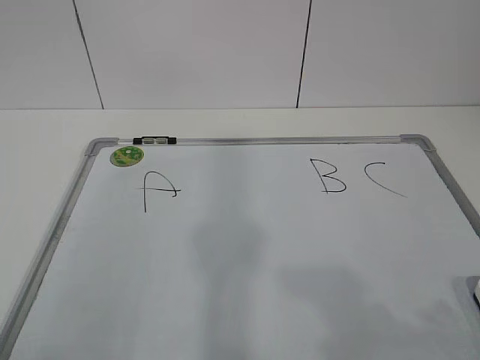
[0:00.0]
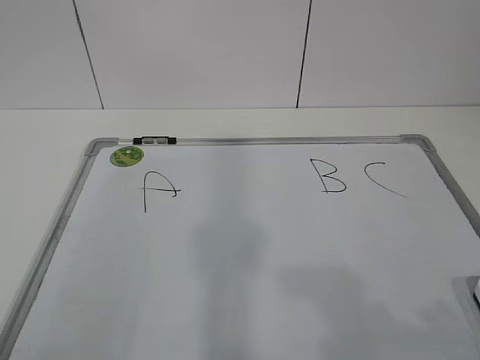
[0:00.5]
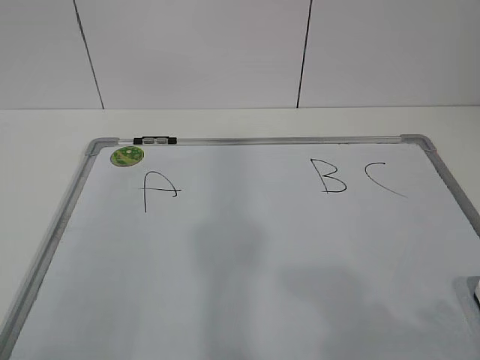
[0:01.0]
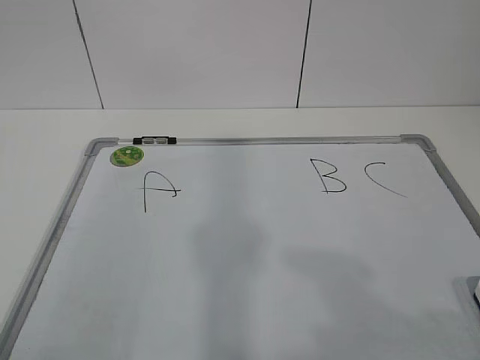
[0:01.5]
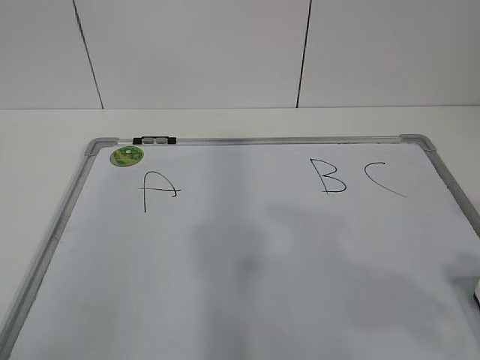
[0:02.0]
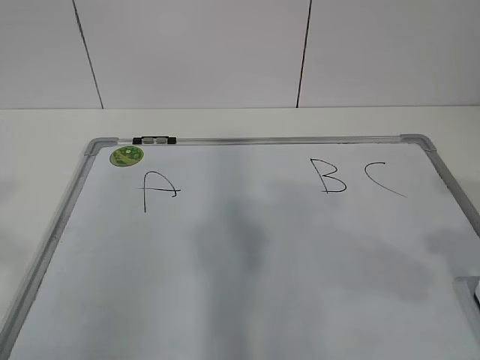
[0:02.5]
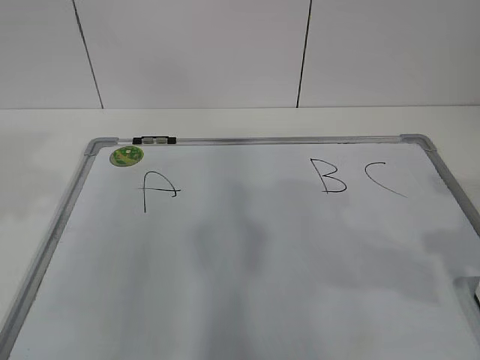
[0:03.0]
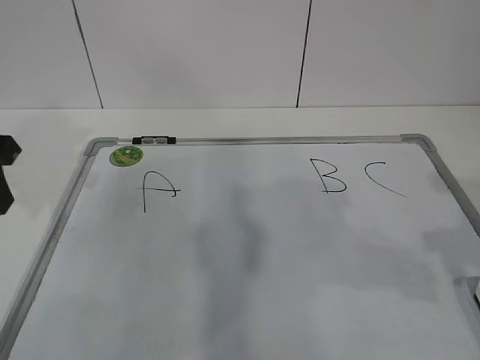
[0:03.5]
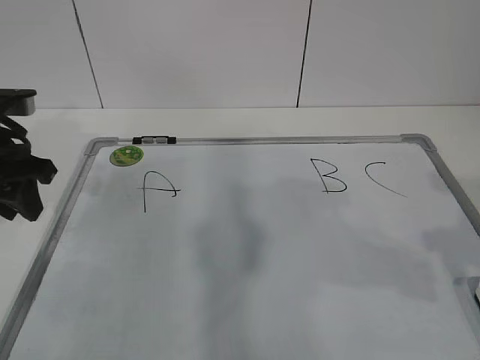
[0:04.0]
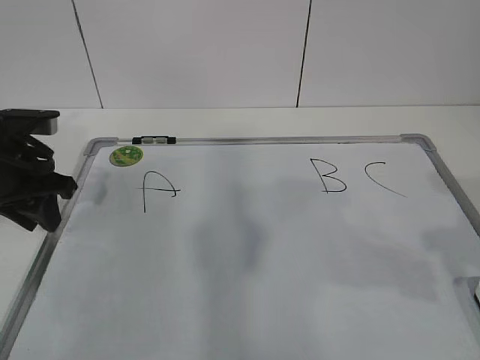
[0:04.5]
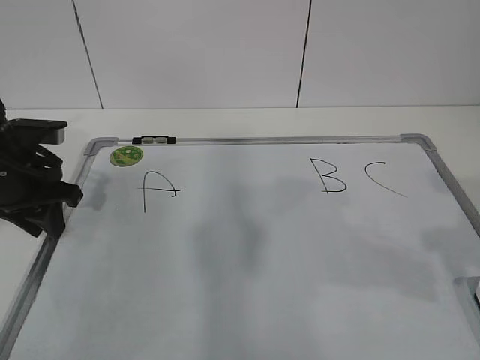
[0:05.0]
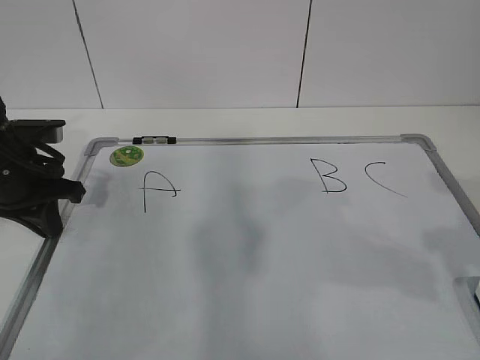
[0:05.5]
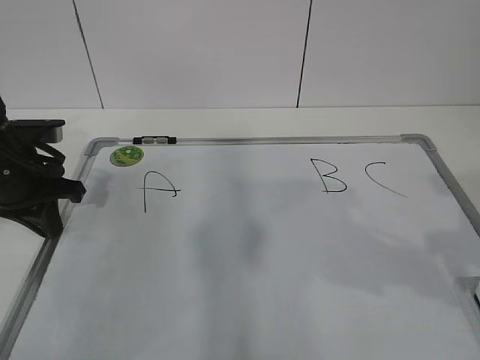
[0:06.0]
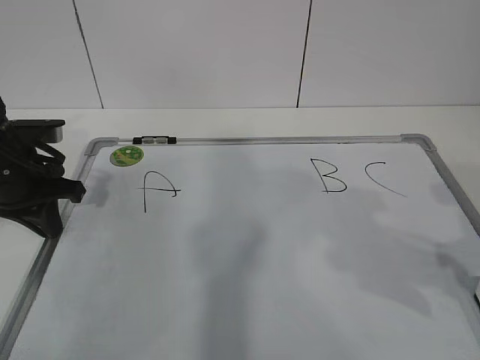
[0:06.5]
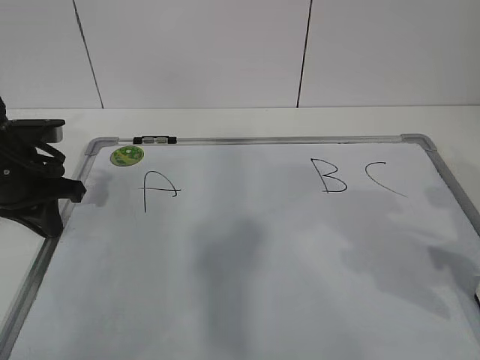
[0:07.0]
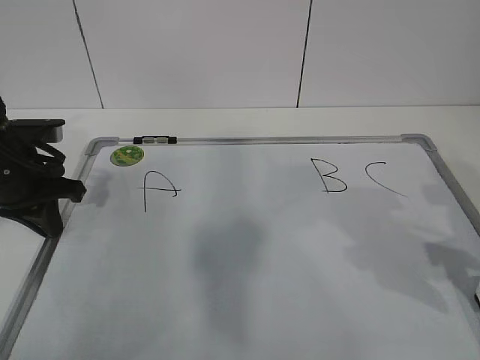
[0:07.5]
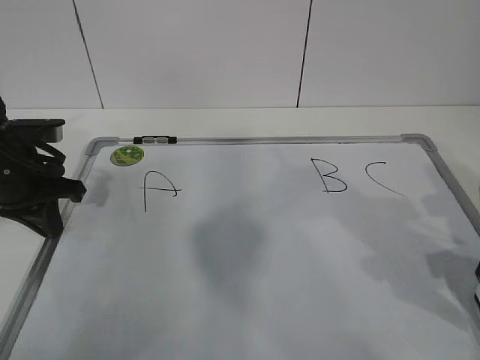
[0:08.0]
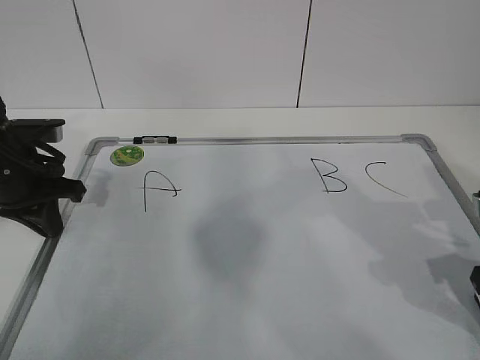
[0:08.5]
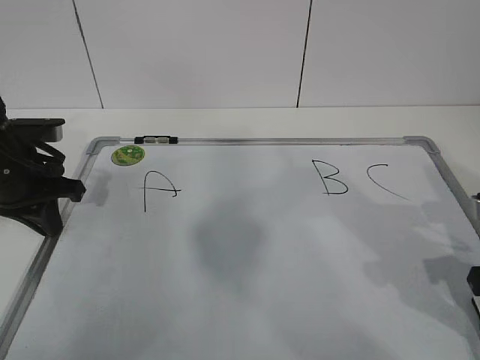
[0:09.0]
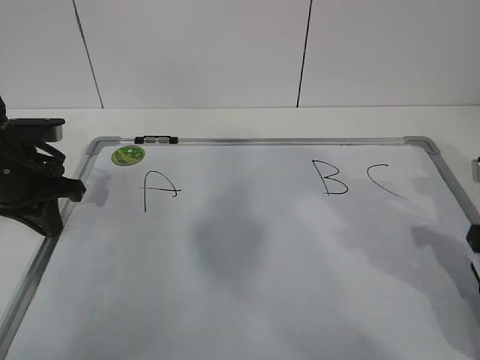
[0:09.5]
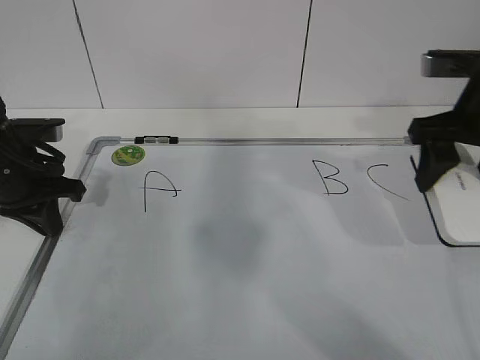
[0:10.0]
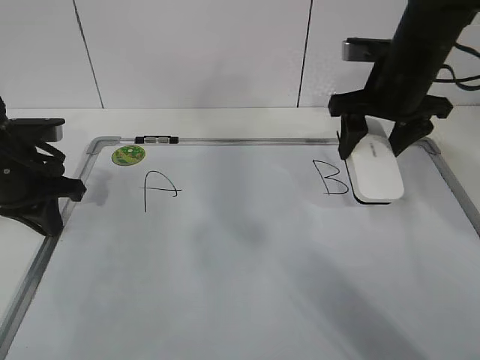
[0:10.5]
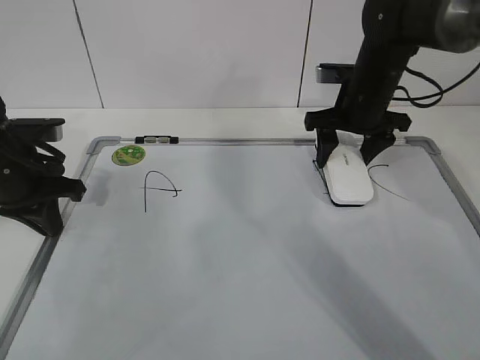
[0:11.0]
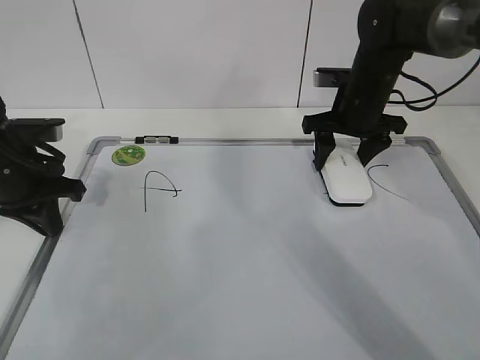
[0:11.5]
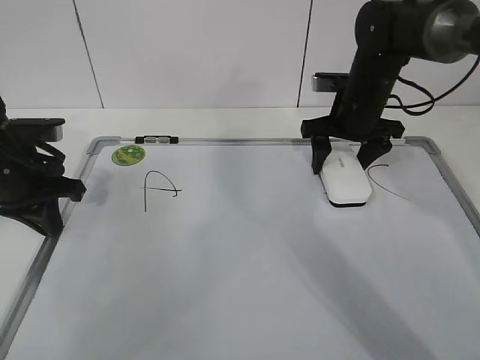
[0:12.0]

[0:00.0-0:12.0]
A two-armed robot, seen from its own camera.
Task of the whole recording: pick up the eraser on the blackboard and erase the letter "B".
Step, 0:00.0 to 0:04.0: Hold the drawing board steady with your left hand.
Step, 0:04.5 to 0:07.0: Grab the eraser with your right hand.
0:02.0 to 0:04.0: The left gripper shifts about 30 cm forward.
0:04.0 to 0:06.0: The left gripper moves downward, about 5 cm, and closes its fingers.
0:06.0 to 0:08.0: The right gripper goes some 15 cm downward and forward.
0:08.0 to 0:10.0: The right gripper moves forward and upward, about 10 cm, and closes.
0:10.0 to 0:12.0: The right gripper heads forward, downward and to the left, covering roughly 20 cm, and opens.

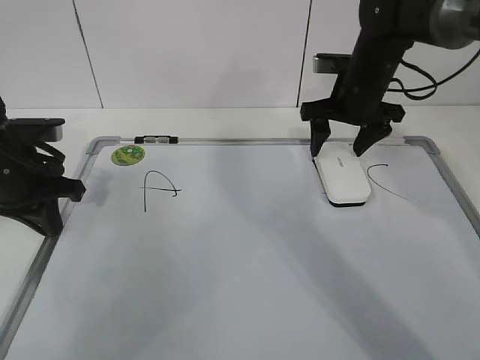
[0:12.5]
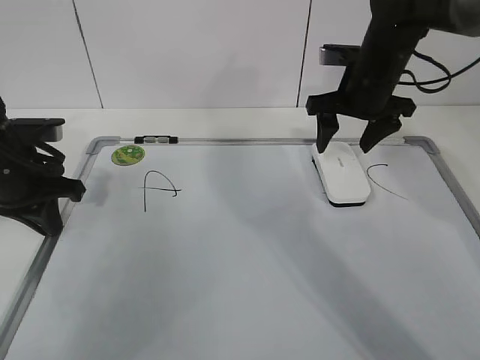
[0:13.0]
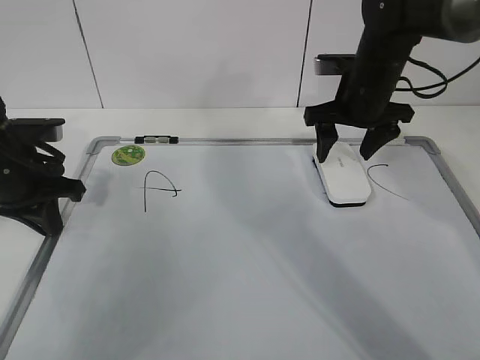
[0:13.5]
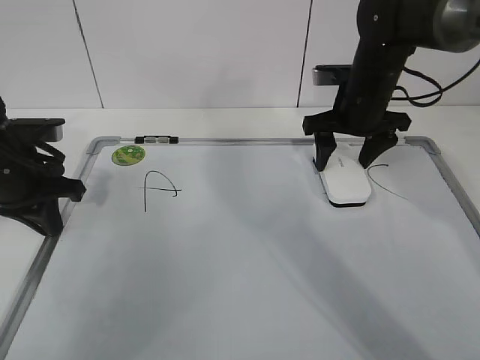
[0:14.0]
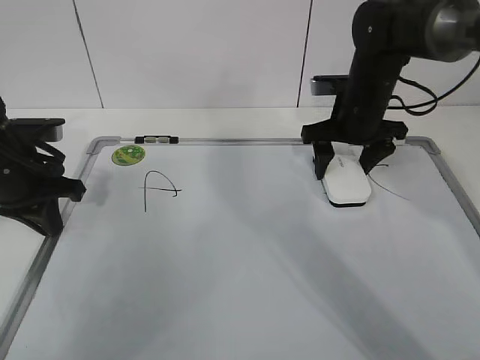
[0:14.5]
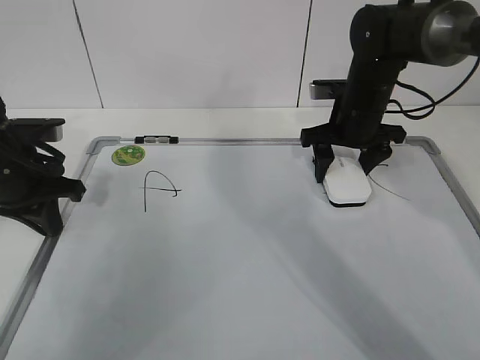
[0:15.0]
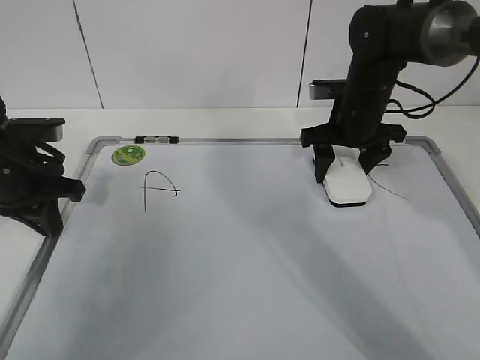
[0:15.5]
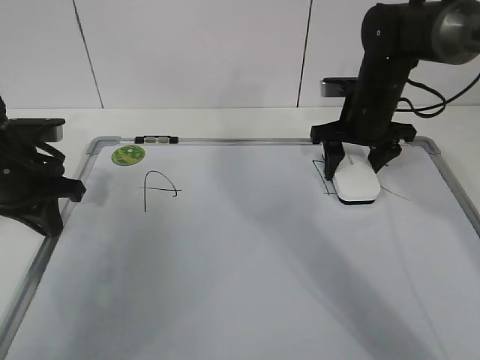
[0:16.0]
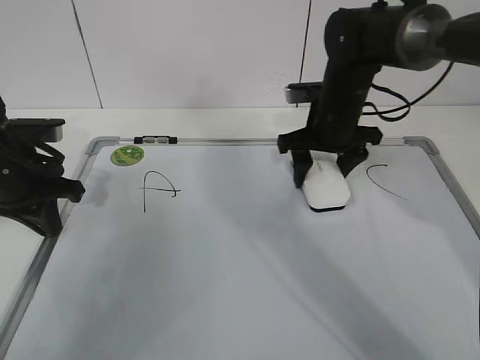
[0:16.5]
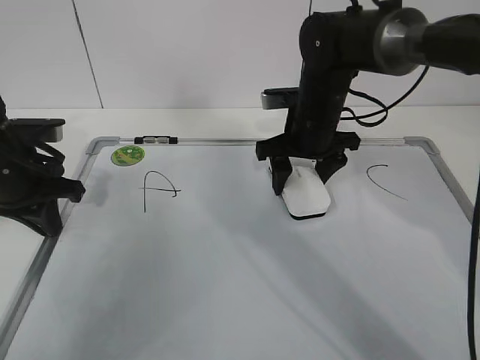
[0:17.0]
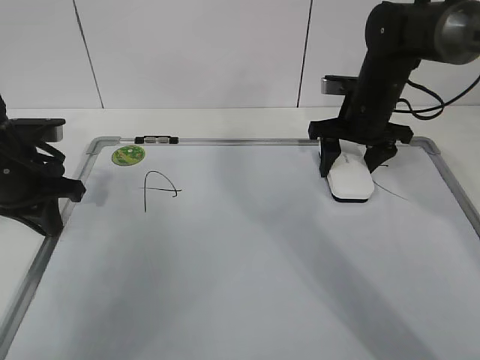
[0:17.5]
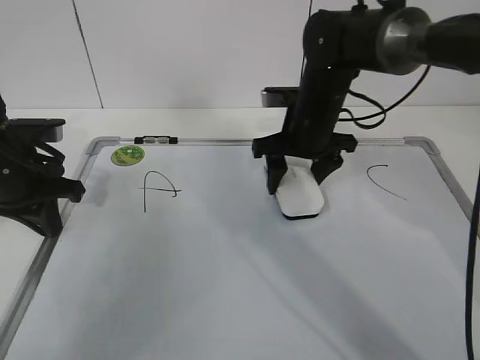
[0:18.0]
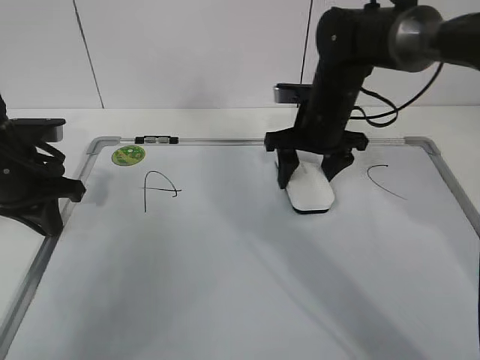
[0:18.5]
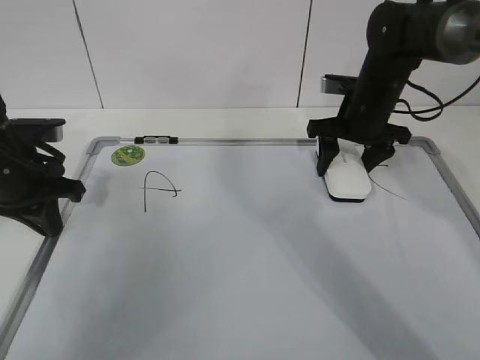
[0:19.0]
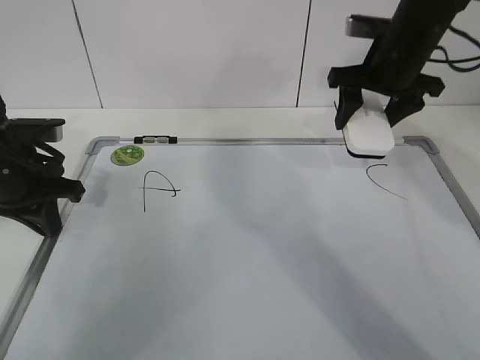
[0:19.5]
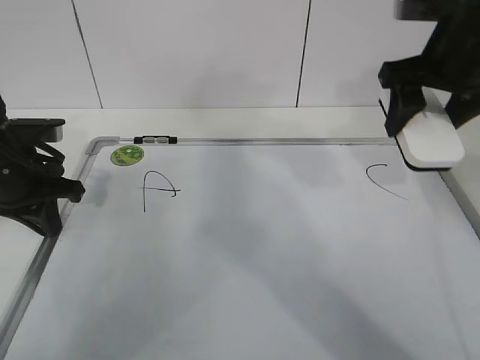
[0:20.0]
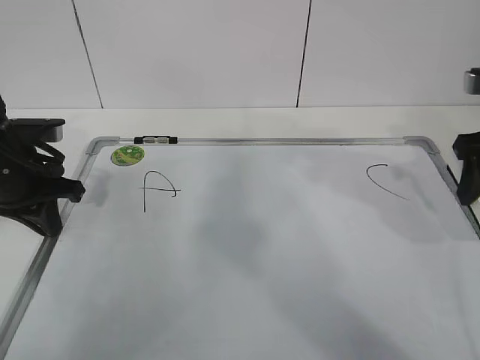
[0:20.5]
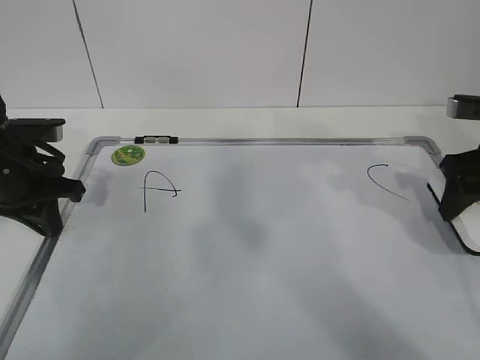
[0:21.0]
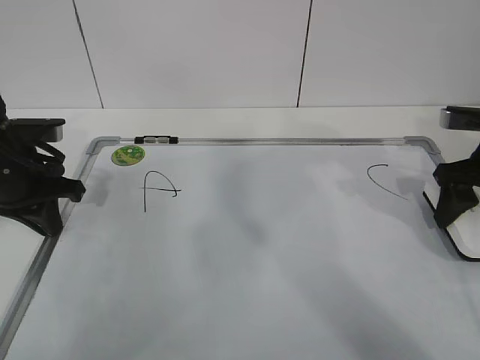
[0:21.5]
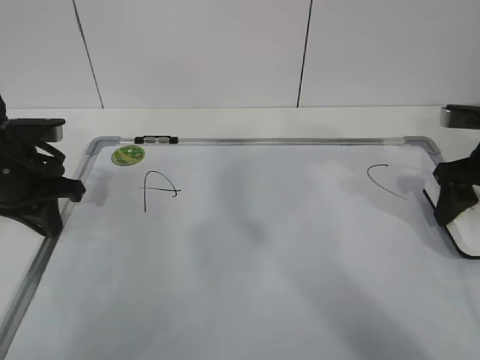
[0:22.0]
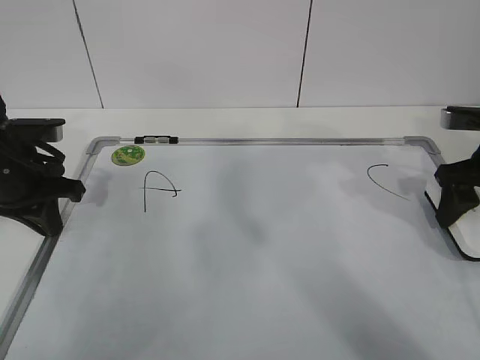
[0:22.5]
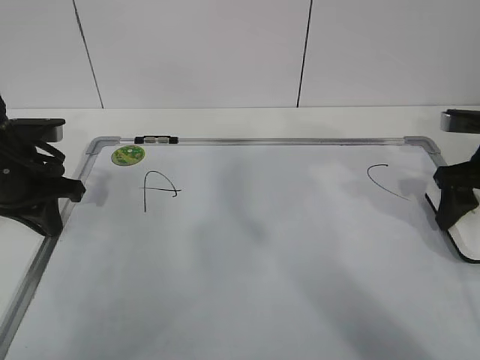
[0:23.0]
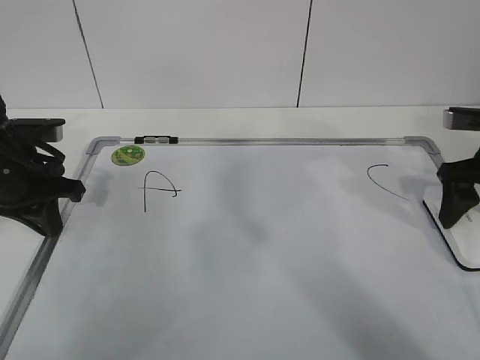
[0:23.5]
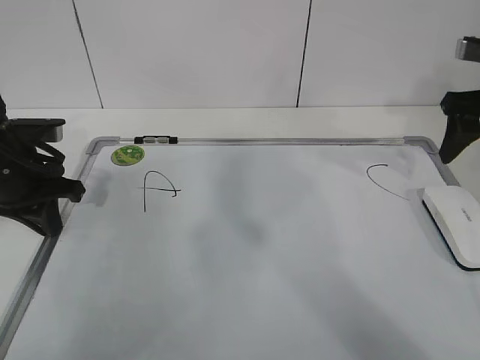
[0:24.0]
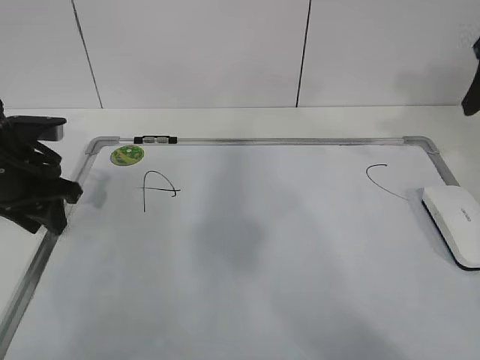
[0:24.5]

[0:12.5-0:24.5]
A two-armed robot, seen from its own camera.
Task of the whole recording: pick up the eraser on the blackboard and erase the letter "B".
Step, 0:12.5 to 0:15.5: Erase the letter B with your right hand.
Step, 0:16.0 to 0:19.0: Put down the eraser with your right hand.
0:12.5 to 0:14.5: The grippers move only a little.
0:14.5 to 0:16.5: The right gripper closes up.
0:16.5 to 0:18.5: The right gripper goes to the right and returns, approximately 5 cm each way.
0:18.5 to 0:20.5: The right gripper heads to the right, backward and upward, covering about 25 cm.
0:20.5 to 0:22.5: The right gripper moves downward, roughly 5 cm.
0:22.5 to 0:24.5: The right gripper is displaced upward by some 15 cm, and opens, then closes once more. Meanwhile the left gripper opens its fingers.

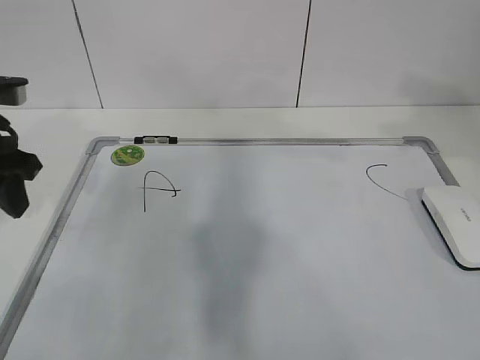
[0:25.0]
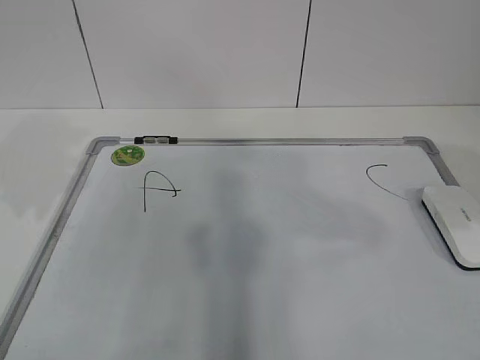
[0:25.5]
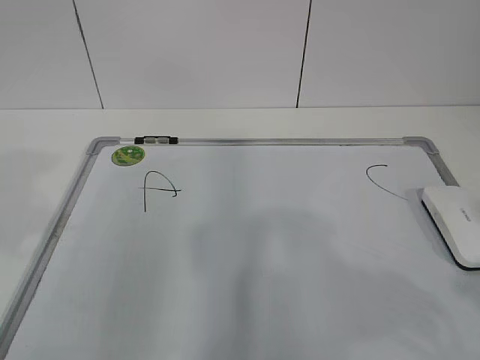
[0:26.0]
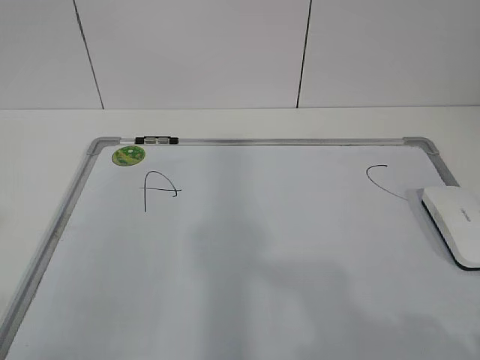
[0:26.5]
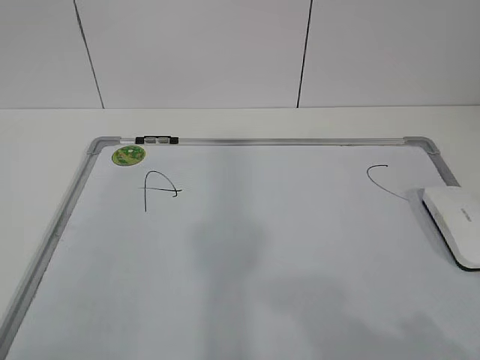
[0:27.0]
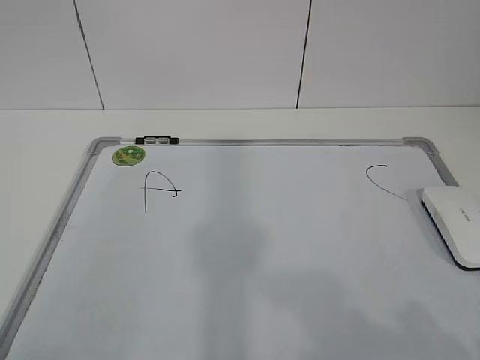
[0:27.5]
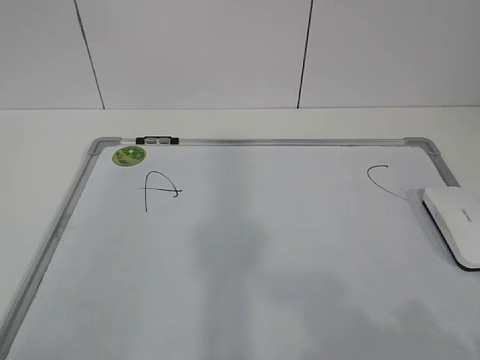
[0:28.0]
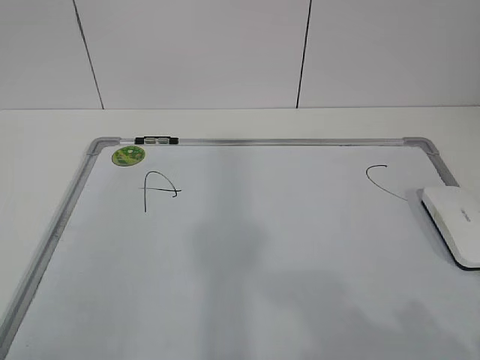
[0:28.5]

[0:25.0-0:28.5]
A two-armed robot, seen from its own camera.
Task of the whole recording: pick up the eraser on the blackboard and erase the letter "B".
0:25.0 to 0:27.0: The grippers both shift backward by approximately 30 cm.
